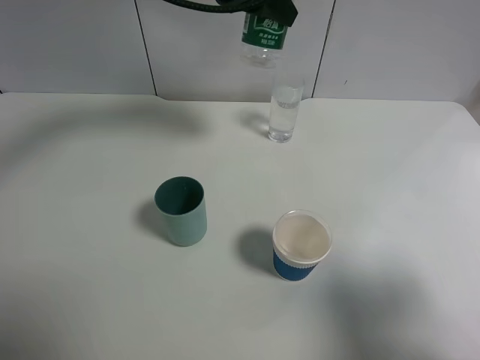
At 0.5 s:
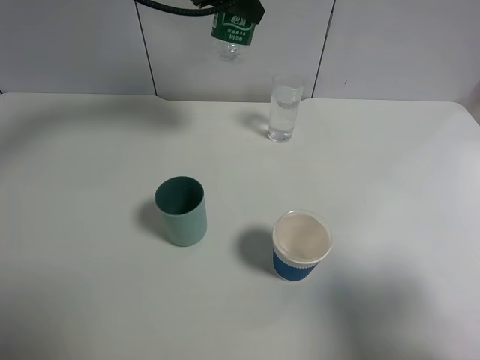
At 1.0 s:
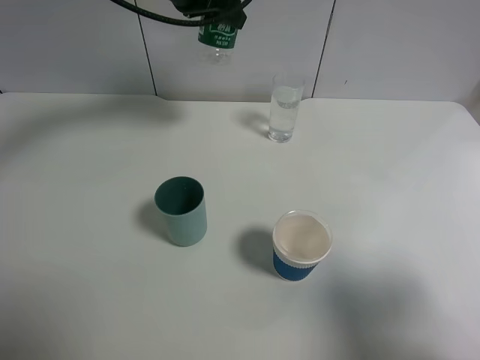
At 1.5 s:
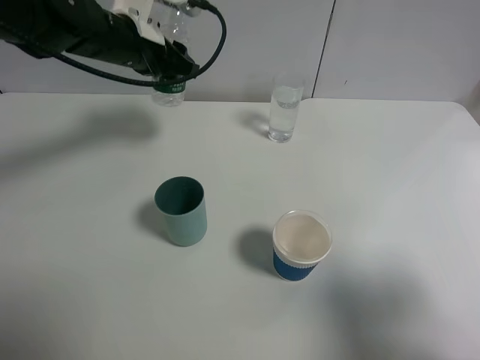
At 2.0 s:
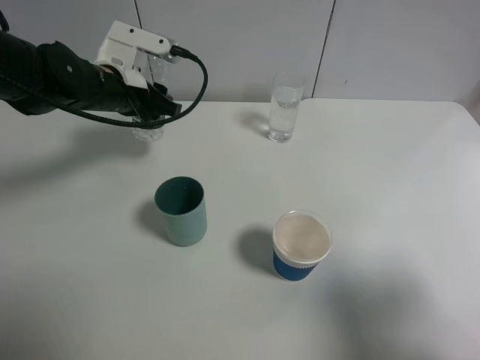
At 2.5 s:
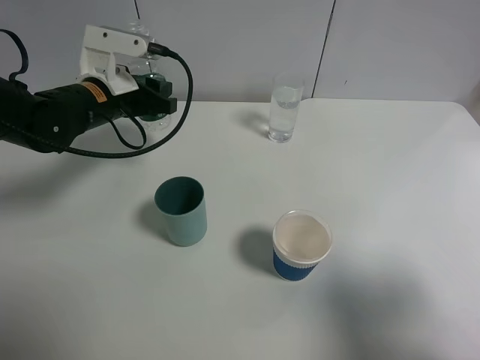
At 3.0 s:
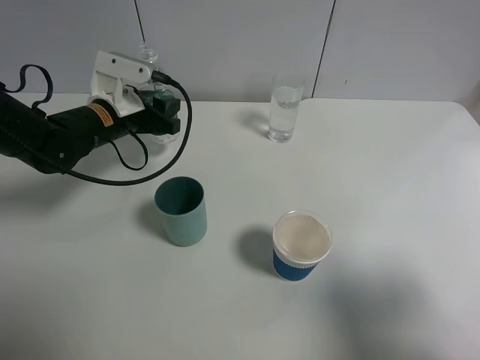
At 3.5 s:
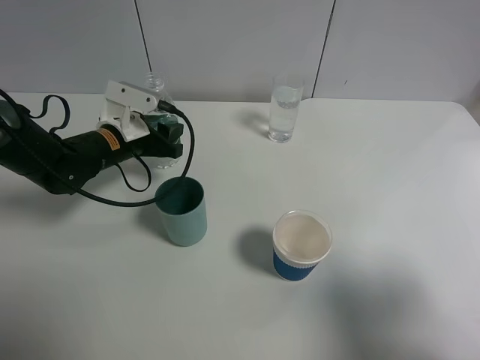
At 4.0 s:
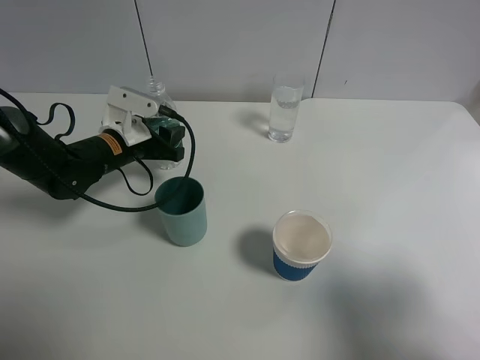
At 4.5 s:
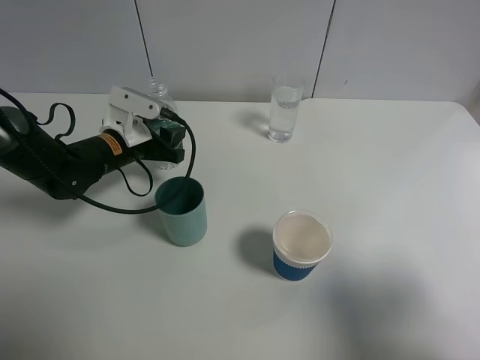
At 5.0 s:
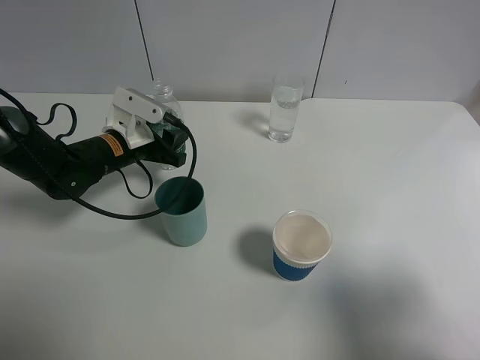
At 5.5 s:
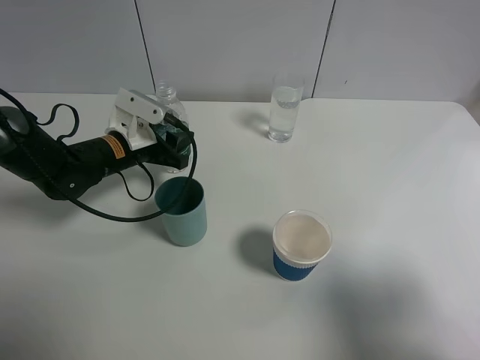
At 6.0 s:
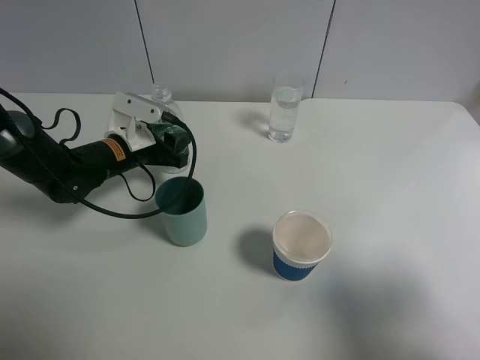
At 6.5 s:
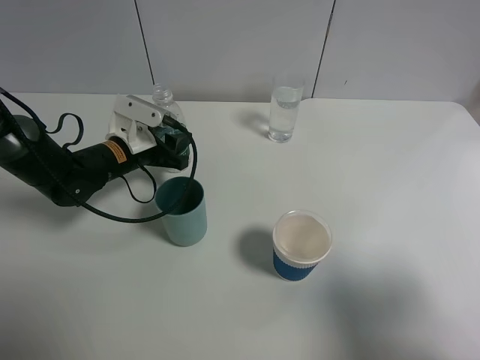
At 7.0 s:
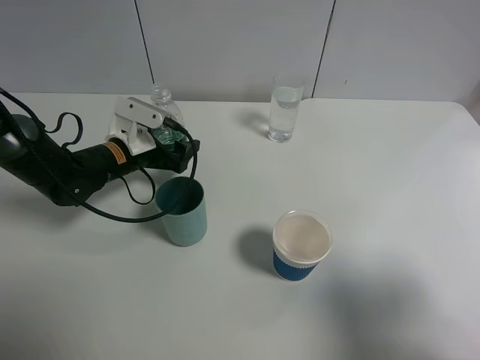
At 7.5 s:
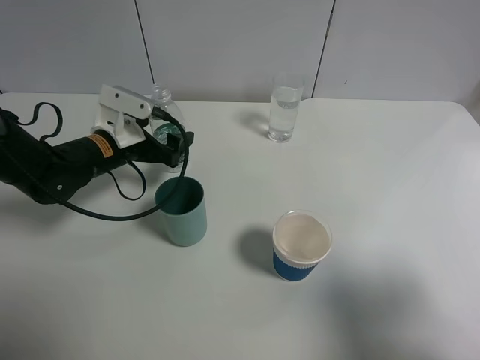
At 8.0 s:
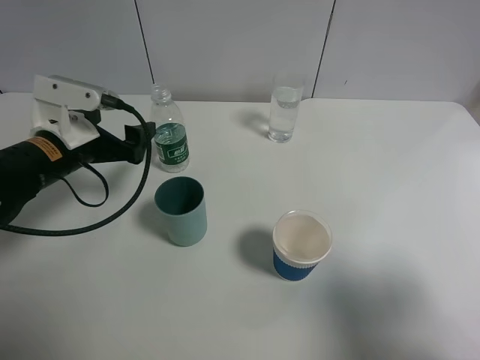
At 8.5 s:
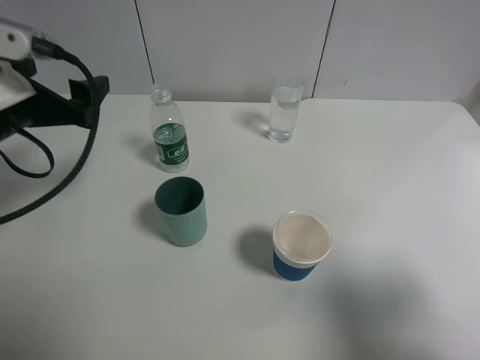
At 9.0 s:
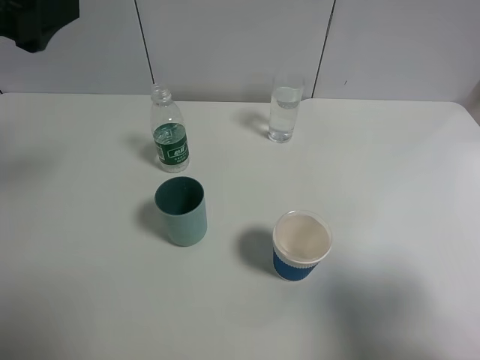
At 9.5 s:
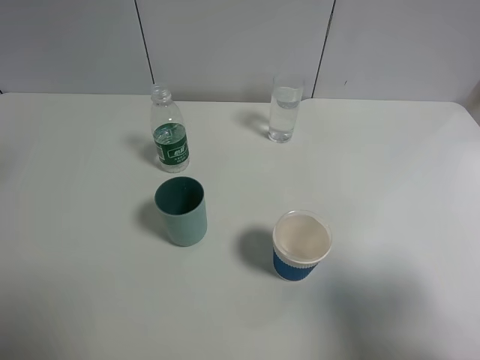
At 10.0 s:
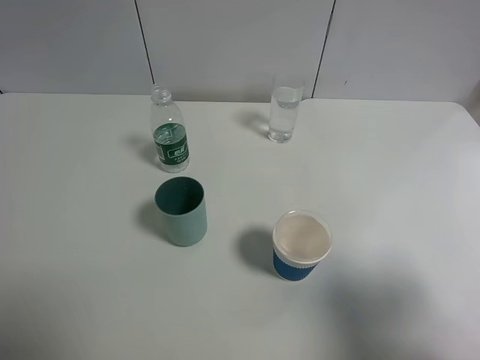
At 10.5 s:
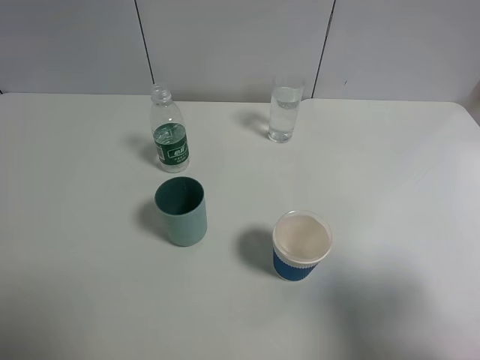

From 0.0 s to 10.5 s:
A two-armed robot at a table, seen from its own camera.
Task of the whole recording: use a gripper to hold the bottle of the drink and pour it into a random cup.
Step, from 0.0 s to 7.5 s: Place the mineral water bottle on the table with the left gripper.
From 0.0 s to 2.0 s: The left gripper goes some 20 cm downward, to the left and backward.
From 2.0 s to 4.0 s: The left gripper is displaced downward by some 10 cm.
From 4.0 s to 6.5 s: There are only small adjustments of the grippers.
From 6.5 s to 8.5 s: The left gripper heads upward, backward and to the left, covering roughly 20 cm, and opens up.
From 8.5 s to 10.5 s: The left gripper moves backward and upward, approximately 25 cm.

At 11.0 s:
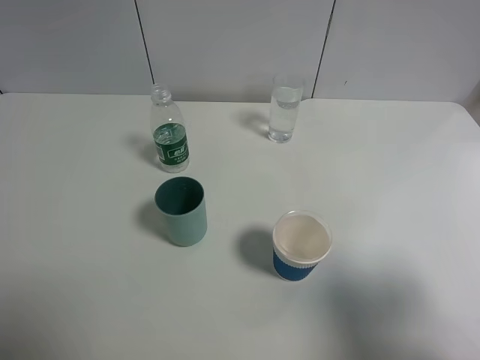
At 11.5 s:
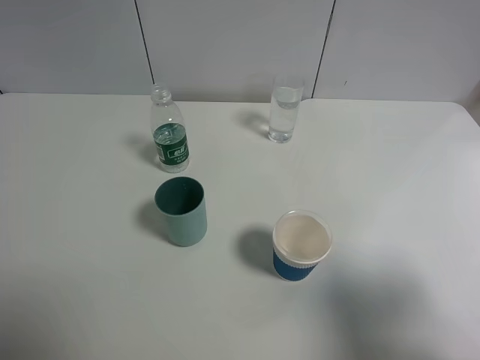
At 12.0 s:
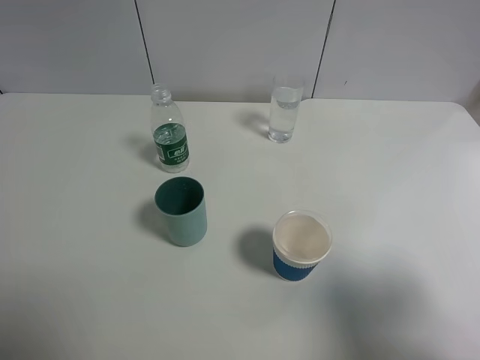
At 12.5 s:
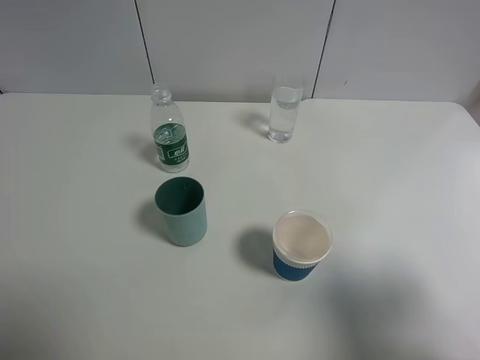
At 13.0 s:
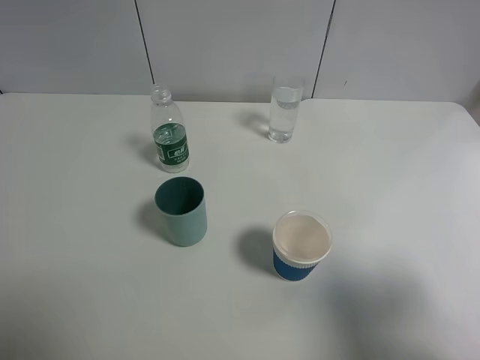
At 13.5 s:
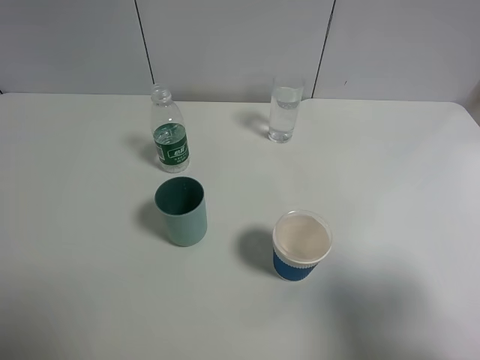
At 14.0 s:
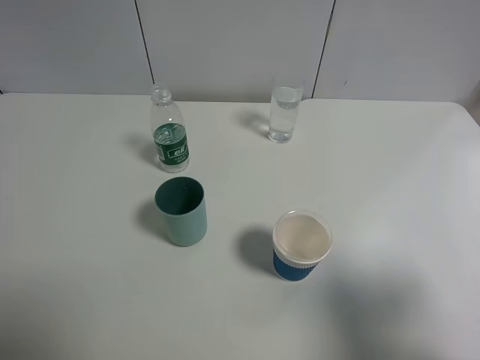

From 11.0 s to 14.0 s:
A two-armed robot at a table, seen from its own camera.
Task of the whole recording: use a gripper to hold the bottle of the drink and pour it into a random cup.
From 12.5 s to 14.0 s: The two grippers keep their place.

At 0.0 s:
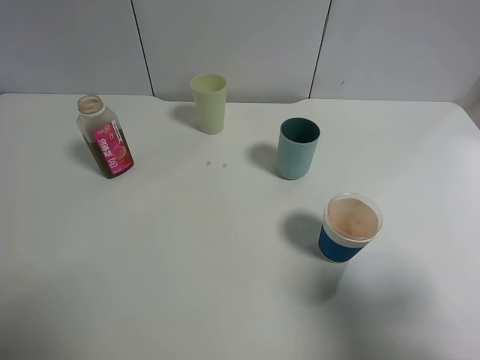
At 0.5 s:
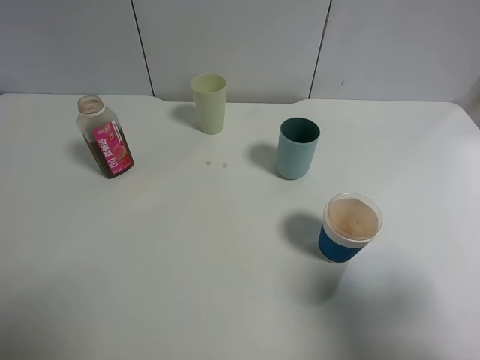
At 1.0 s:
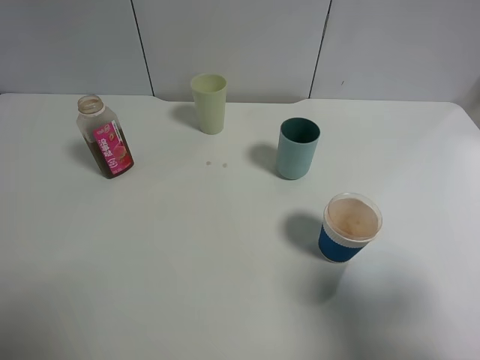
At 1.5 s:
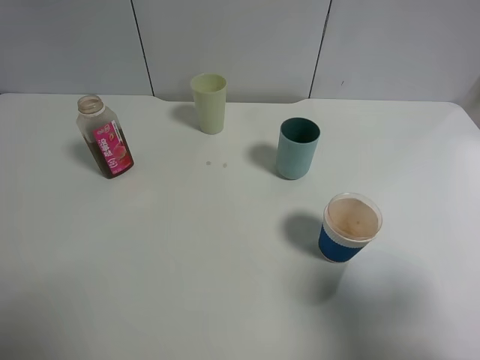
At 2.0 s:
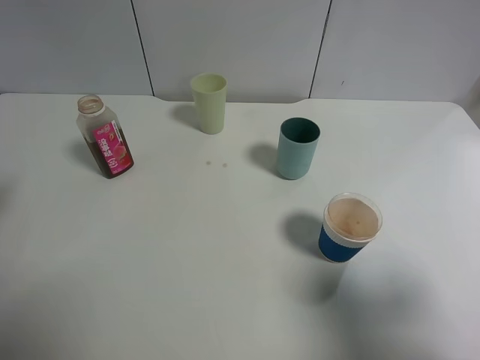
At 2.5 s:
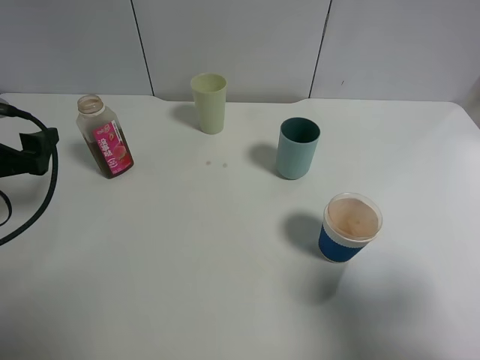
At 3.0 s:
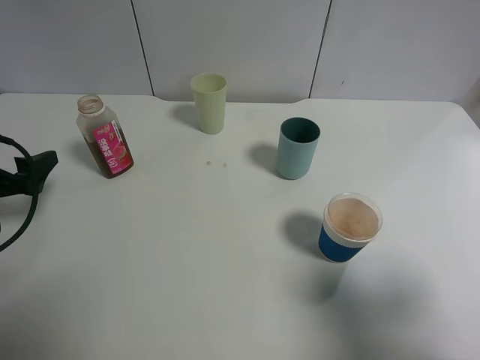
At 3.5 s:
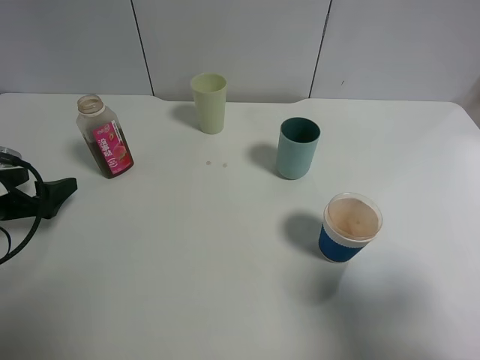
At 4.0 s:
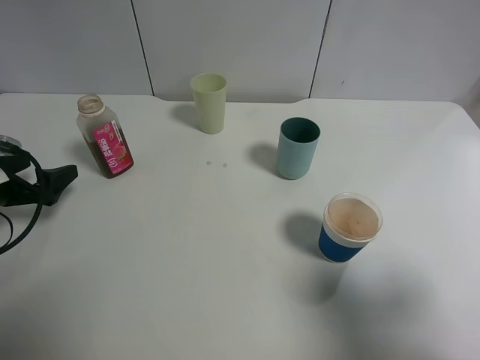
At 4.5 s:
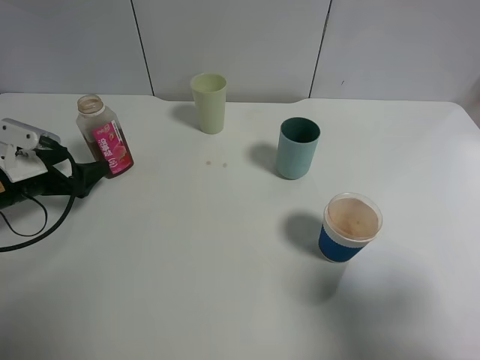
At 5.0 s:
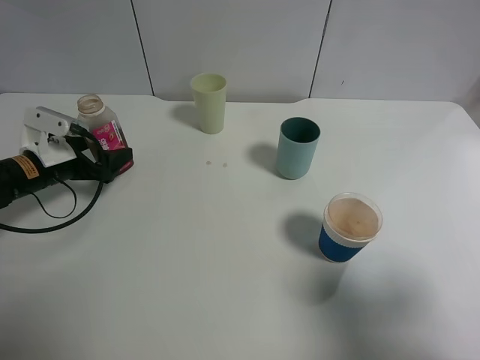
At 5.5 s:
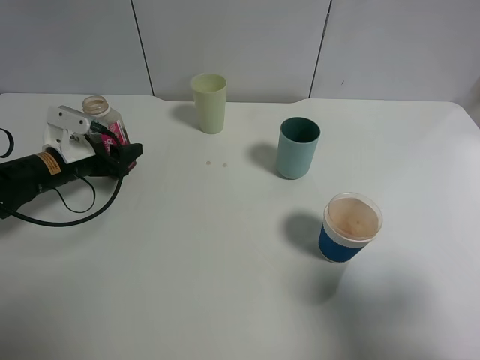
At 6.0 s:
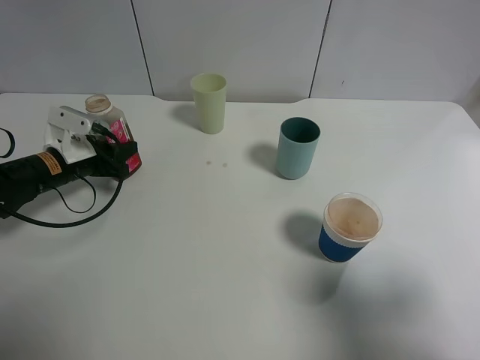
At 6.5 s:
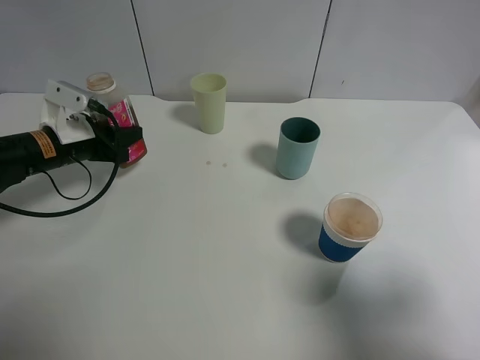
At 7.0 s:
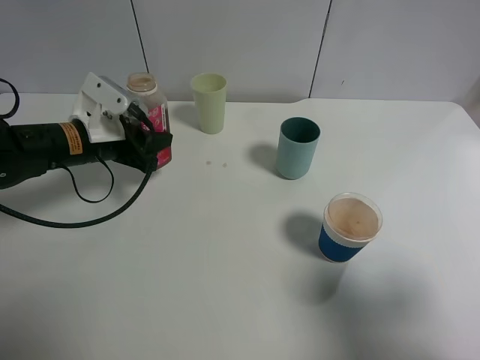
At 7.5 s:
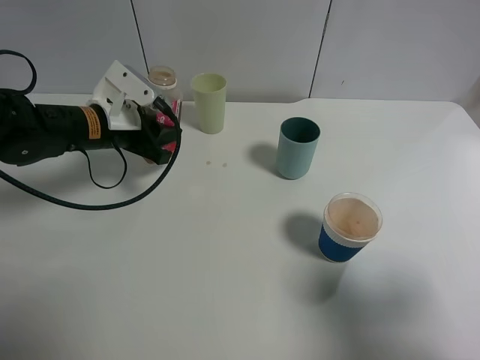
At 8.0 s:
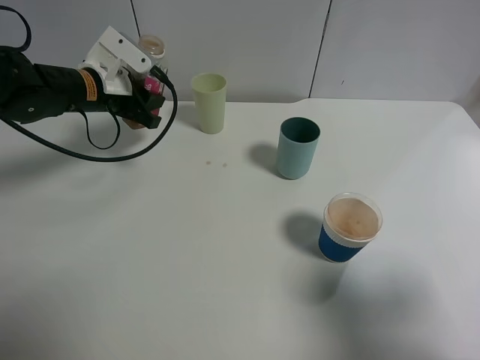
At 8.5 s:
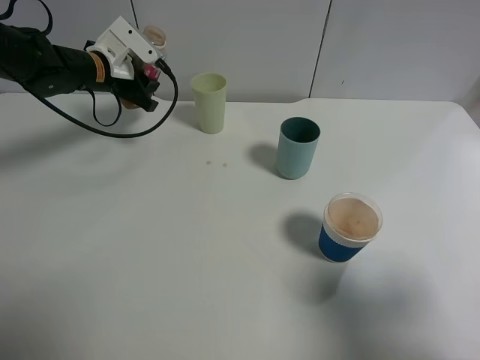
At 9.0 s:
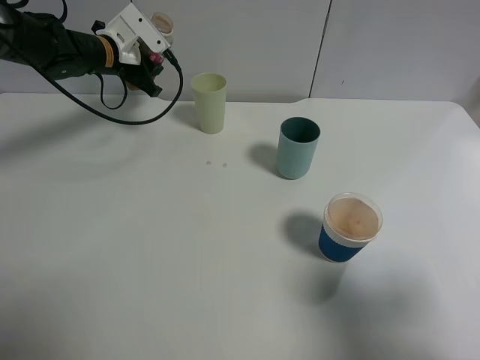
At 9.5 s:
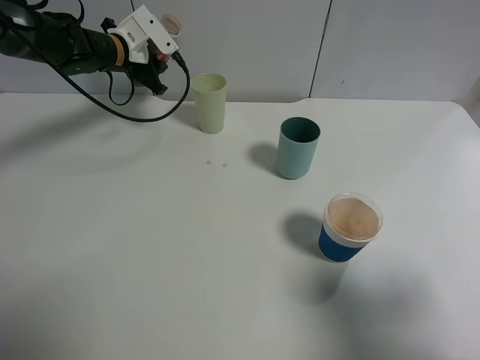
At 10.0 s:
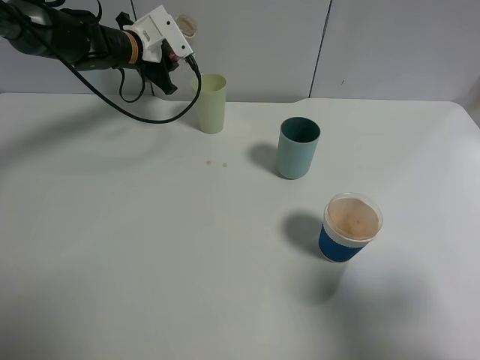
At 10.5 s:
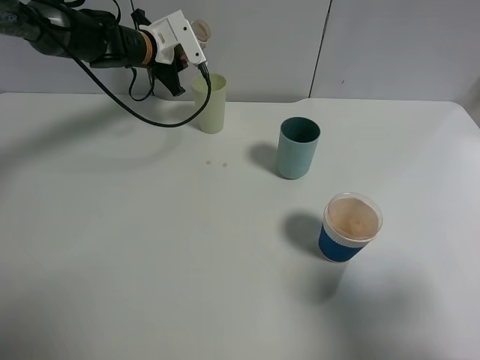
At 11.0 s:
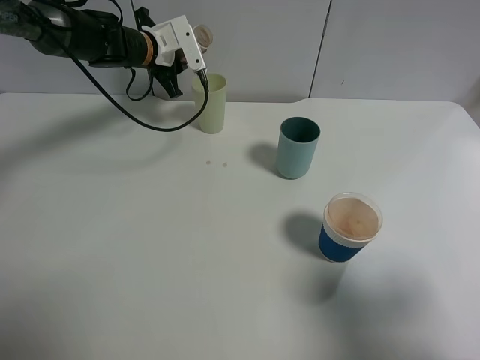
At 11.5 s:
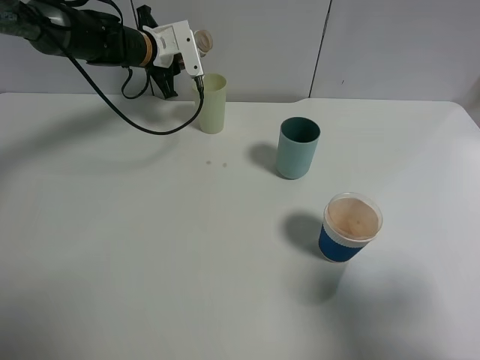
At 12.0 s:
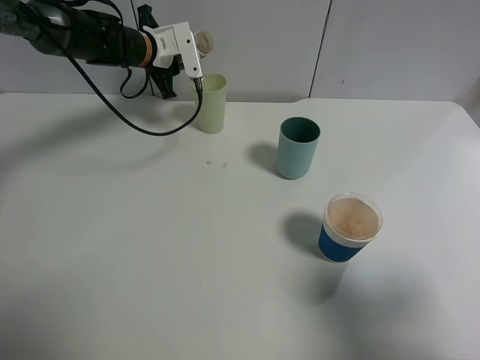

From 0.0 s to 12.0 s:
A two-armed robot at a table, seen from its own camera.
Task of the whole recording: use a gripper to hold the bottle of the drink and pour it into a random cup.
Step, from 0.0 s to 6.0 s: Grasp the cranberry juice bottle with the left gripper.
From 2.0 s to 4.0 s: The left gripper heads downward and forward, covering approximately 15 cm.
From 4.0 s to 6.0 s: The left gripper shifts approximately 10 cm forward and to the right, and closes its fingers.
From 6.0 s to 8.0 s: The left gripper shifts approximately 15 cm upward, to the right and forward.
From 8.0 s to 10.0 s: The left gripper is displaced forward by some 10 cm.
